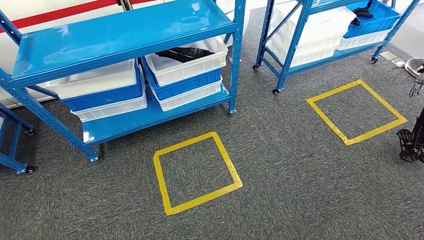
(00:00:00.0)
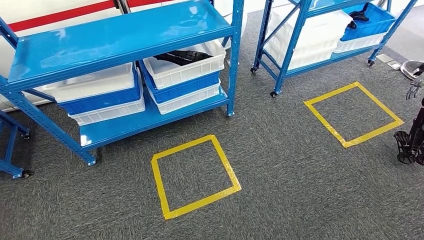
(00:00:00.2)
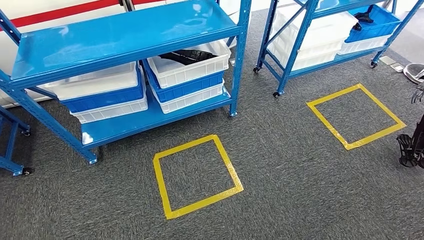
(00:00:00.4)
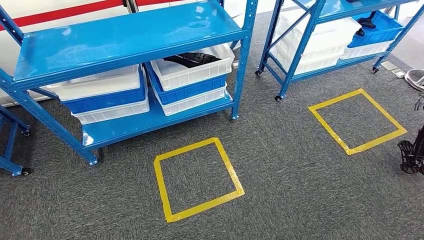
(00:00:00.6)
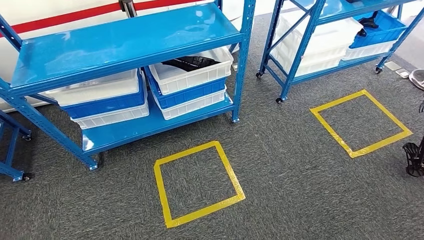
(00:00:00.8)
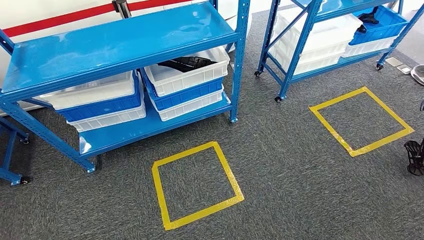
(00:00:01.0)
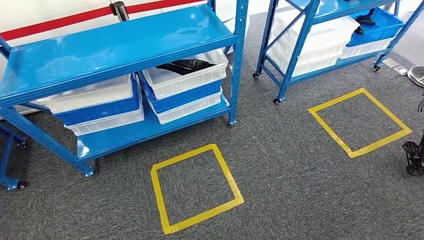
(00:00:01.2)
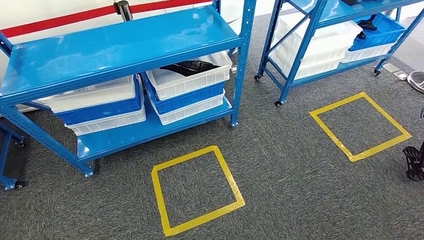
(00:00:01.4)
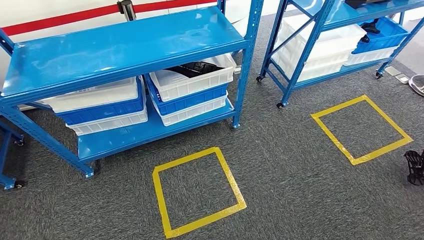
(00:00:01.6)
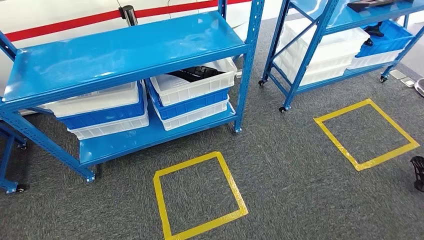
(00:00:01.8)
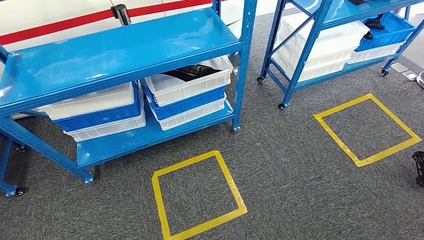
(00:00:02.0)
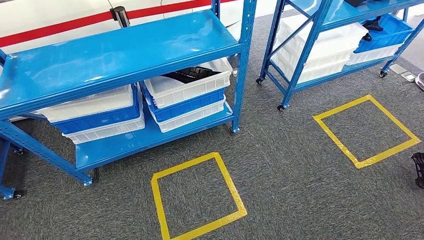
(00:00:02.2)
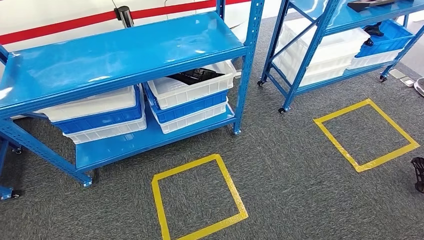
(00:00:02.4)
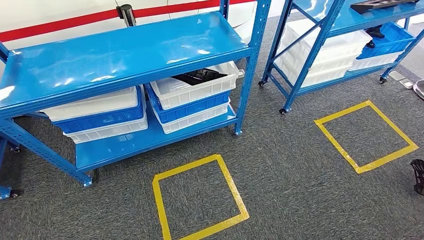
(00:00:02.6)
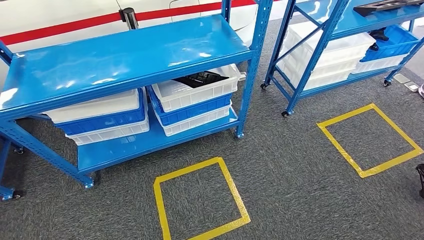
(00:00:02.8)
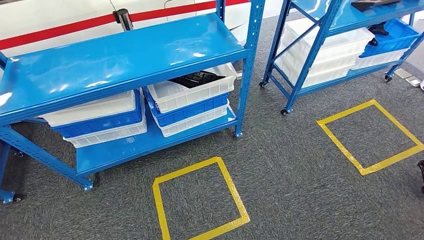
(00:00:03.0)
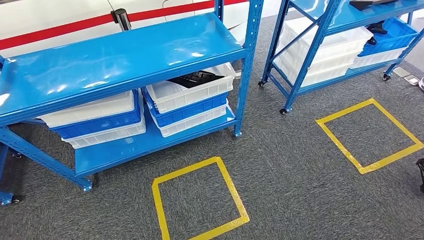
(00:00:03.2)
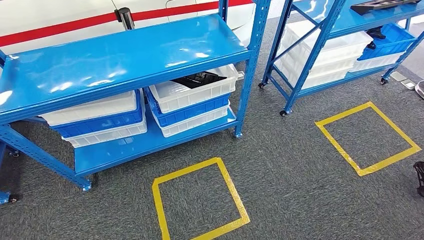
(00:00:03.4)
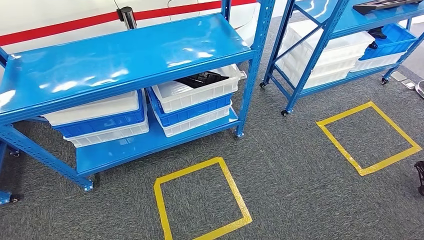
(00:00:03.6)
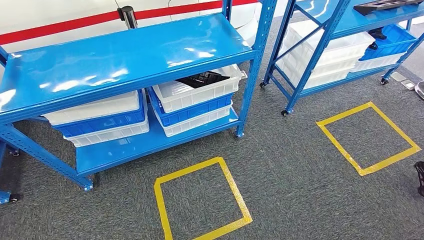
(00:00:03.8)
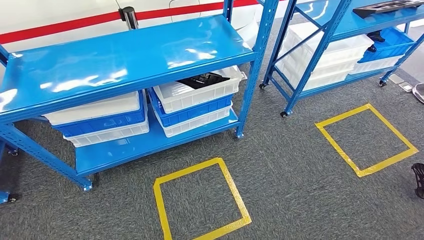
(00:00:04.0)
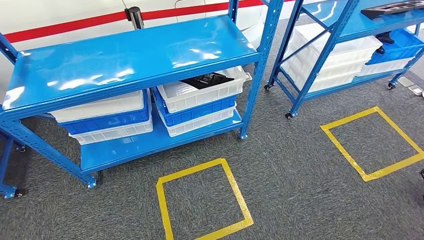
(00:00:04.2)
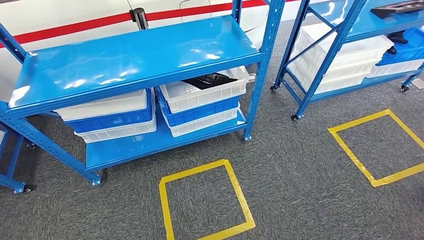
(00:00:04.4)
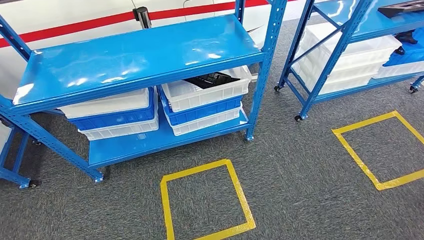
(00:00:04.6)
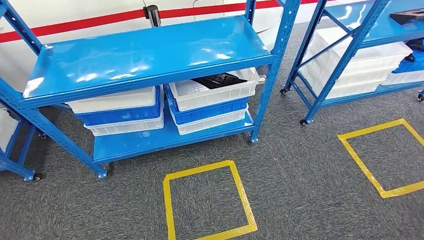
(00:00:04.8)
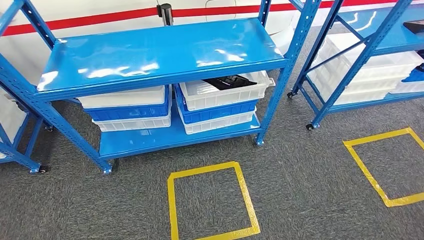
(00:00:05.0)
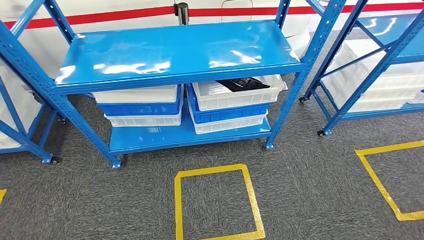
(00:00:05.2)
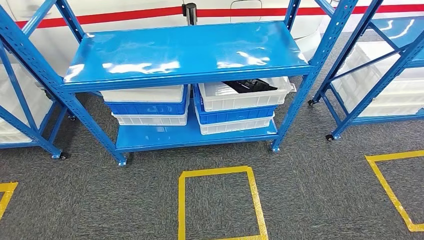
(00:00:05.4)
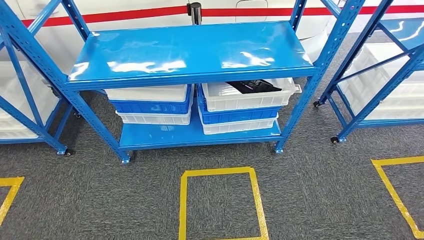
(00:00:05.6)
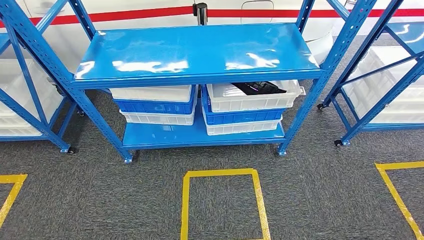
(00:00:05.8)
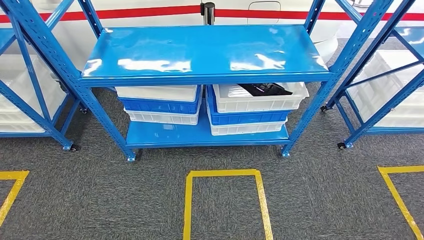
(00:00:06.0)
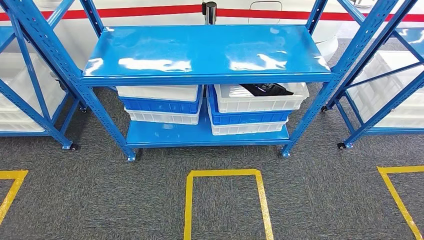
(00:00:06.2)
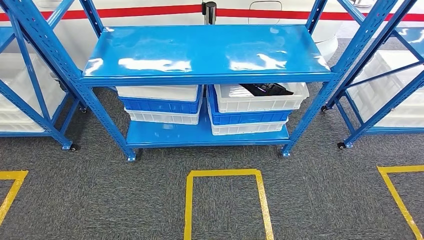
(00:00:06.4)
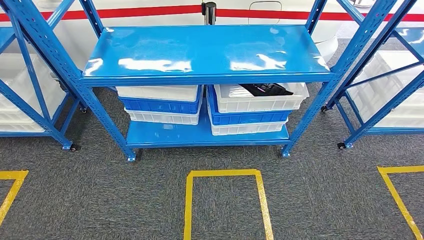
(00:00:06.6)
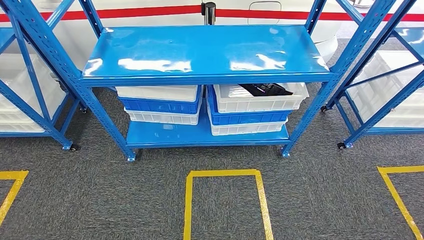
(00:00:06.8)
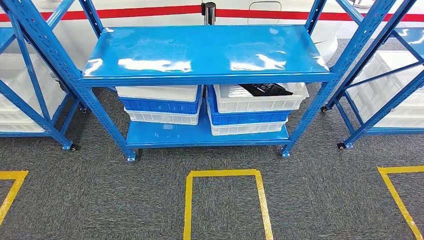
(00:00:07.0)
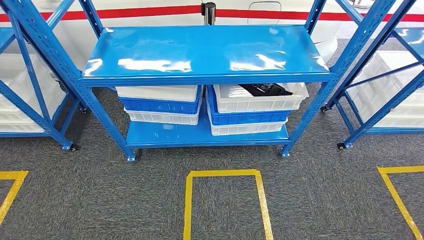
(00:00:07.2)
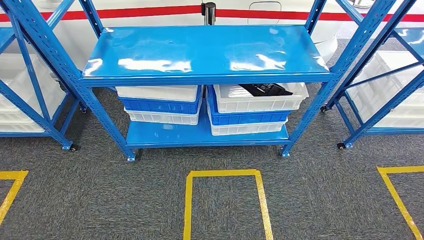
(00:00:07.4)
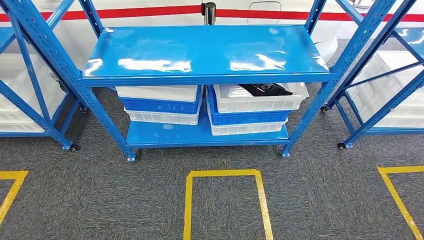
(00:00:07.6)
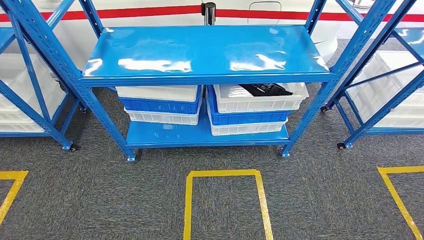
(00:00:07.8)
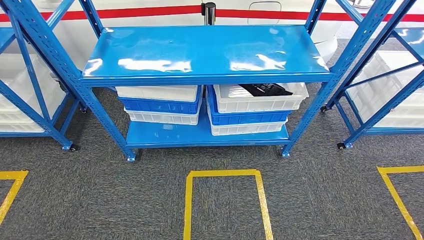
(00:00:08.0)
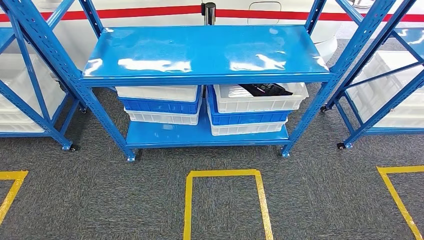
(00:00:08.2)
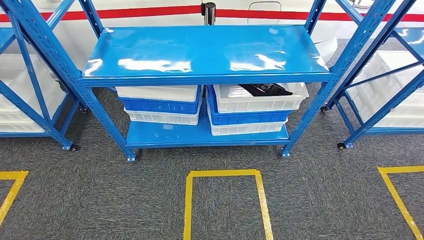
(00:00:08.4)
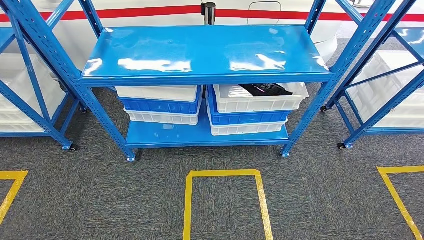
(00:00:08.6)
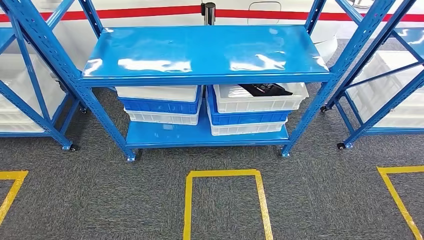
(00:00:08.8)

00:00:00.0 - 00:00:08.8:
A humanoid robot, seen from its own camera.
Step, 00:00:00.0 - 00:00:08.6: Move to the initial position of the shelf.
